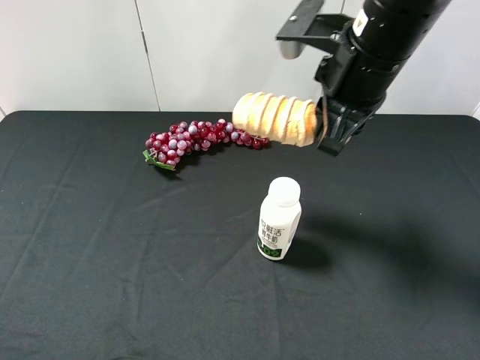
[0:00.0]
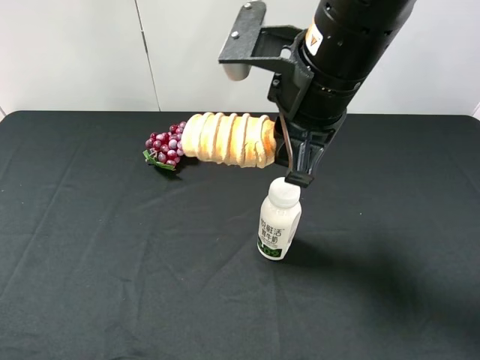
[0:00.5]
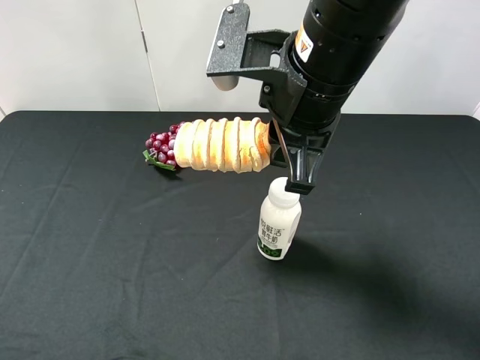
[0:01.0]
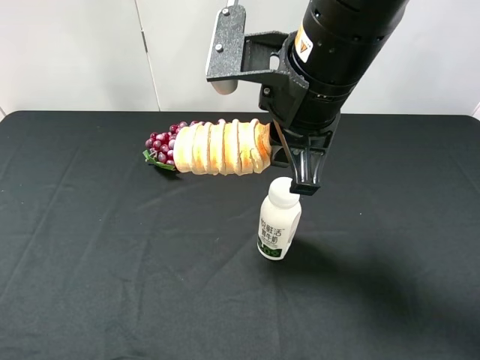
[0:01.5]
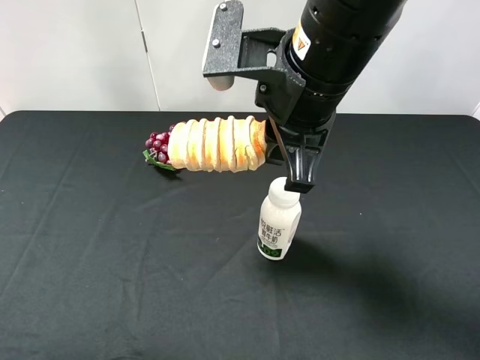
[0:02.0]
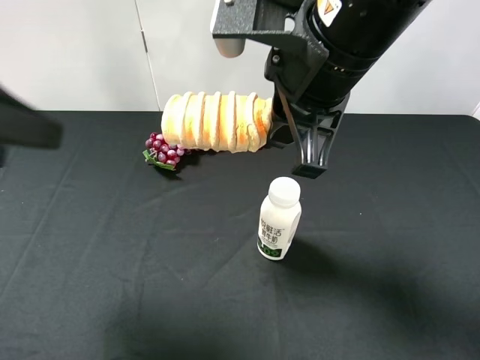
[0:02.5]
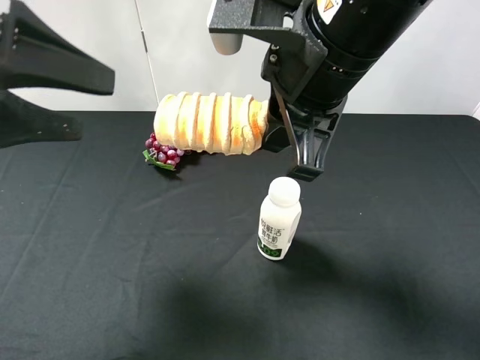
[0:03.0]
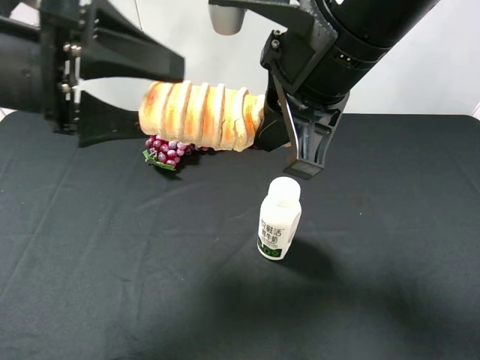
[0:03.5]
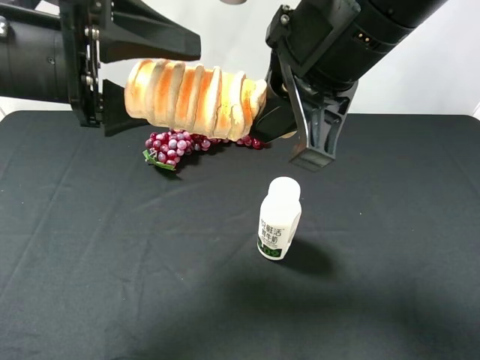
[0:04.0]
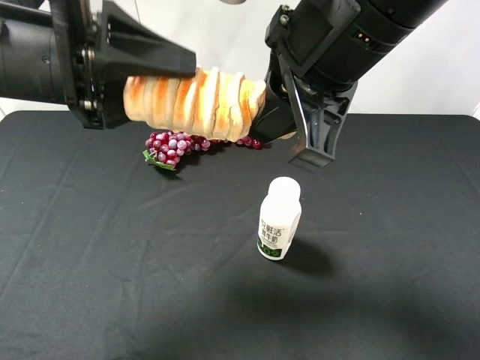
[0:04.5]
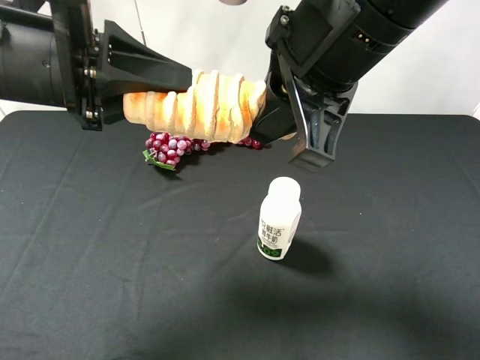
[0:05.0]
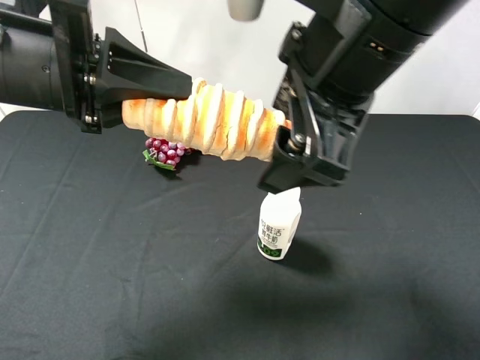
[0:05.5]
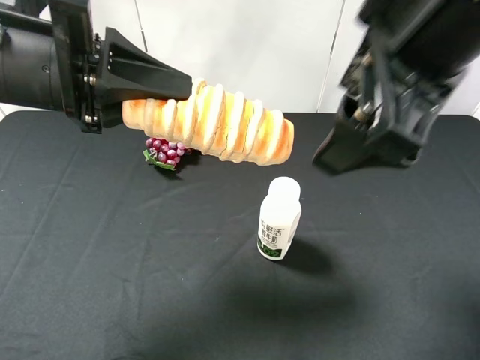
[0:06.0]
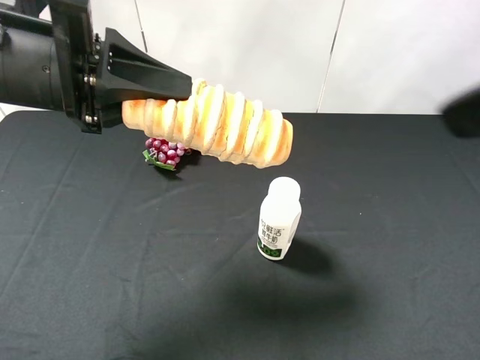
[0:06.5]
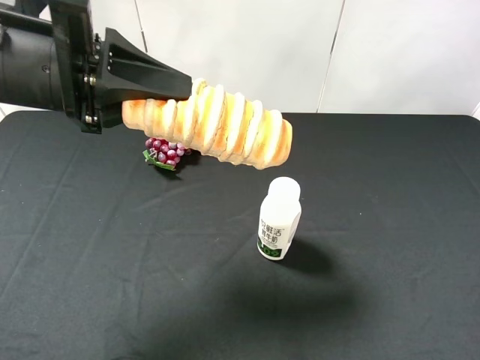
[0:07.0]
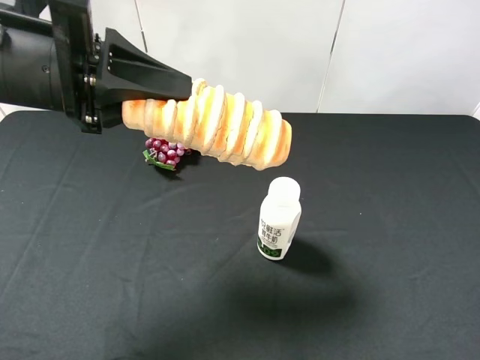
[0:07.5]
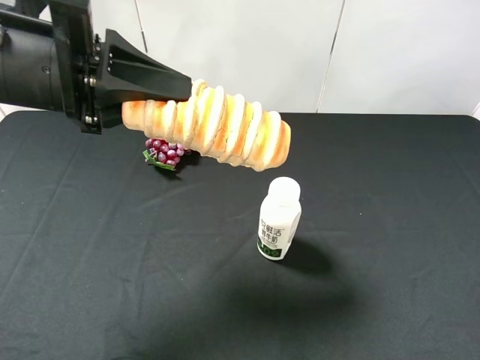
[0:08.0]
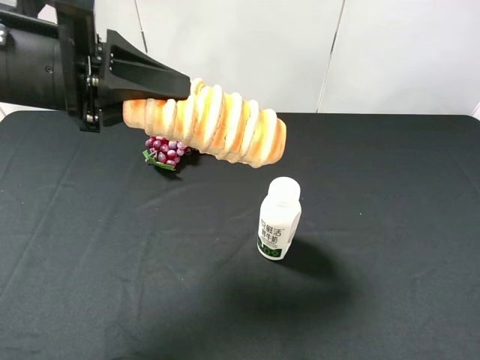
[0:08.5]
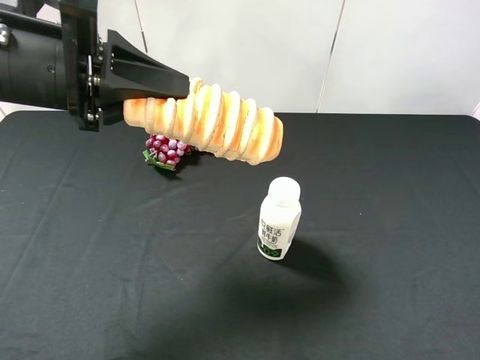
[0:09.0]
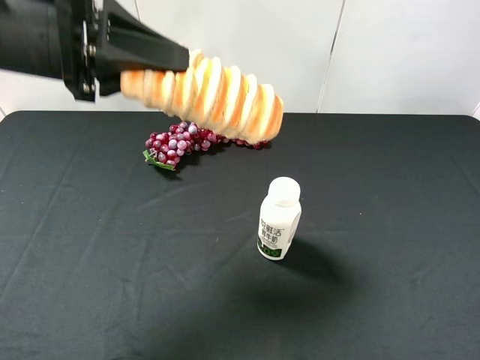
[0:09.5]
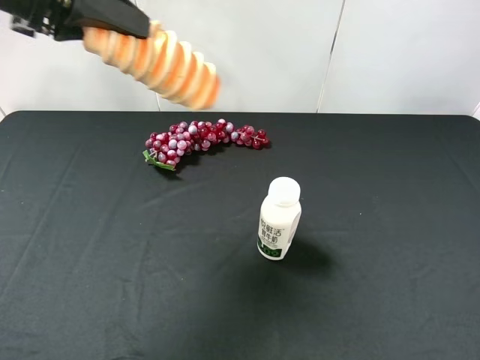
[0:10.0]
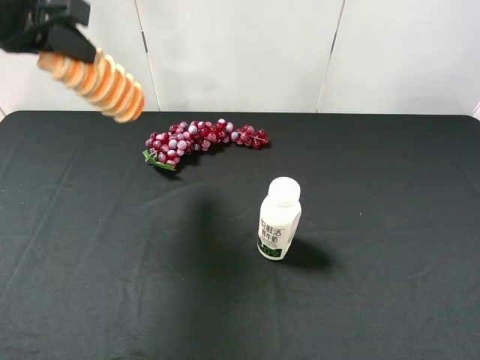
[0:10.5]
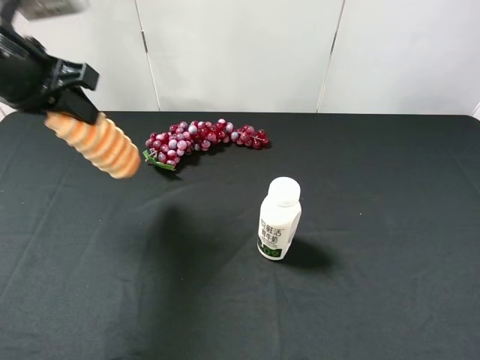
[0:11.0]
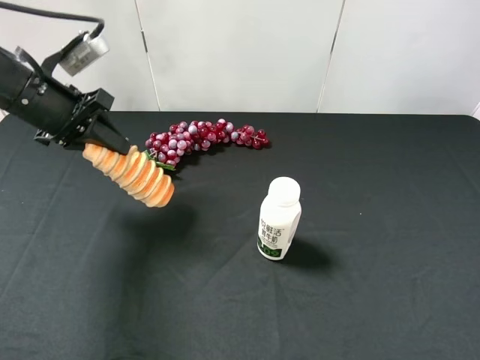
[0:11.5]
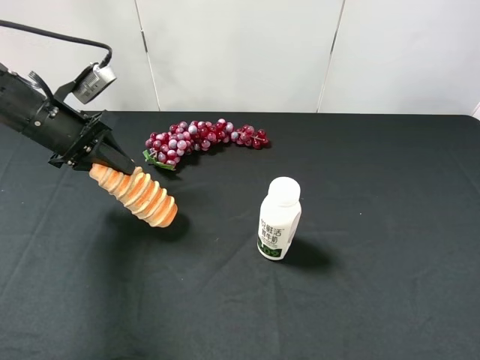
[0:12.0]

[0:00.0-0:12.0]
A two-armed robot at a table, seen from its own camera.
Task of the whole recording: use the right gripper to pick up the item and transfer it from the right gripper to the left gripper.
Step, 0:00.0 to 0:05.5: Pass the bread to the left gripper.
0:00.0 to 0:02.0: The left gripper moves forward and upward, about 10 cm. The right gripper moves to the left, approximately 5 cm.
0:02.0 to 0:04.0: The right gripper changes place by some 5 cm. The left gripper is displaced forward and to the right by about 20 cm.
0:04.0 to 0:06.0: The right gripper travels to the right by some 5 cm, and opens, while the left gripper closes.
0:06.0 to 0:08.0: The right gripper heads to the right, backward and downward, covering roughly 25 cm.
0:08.0 to 0:10.0: The left gripper goes approximately 10 cm upward.
0:10.0 to 0:12.0: The left gripper goes about 20 cm downward.

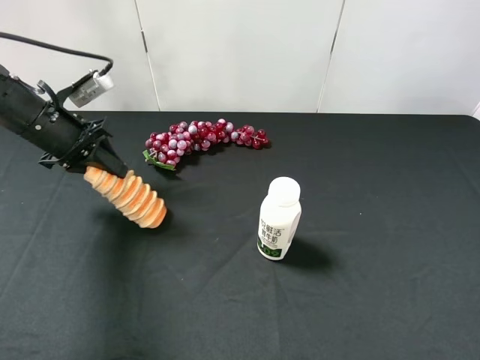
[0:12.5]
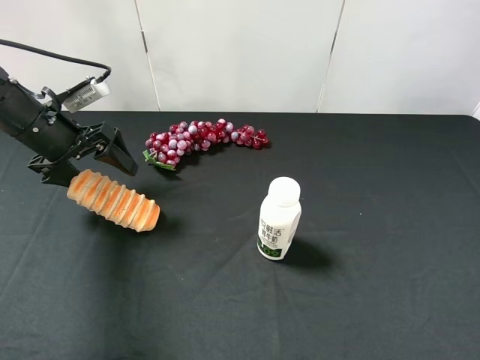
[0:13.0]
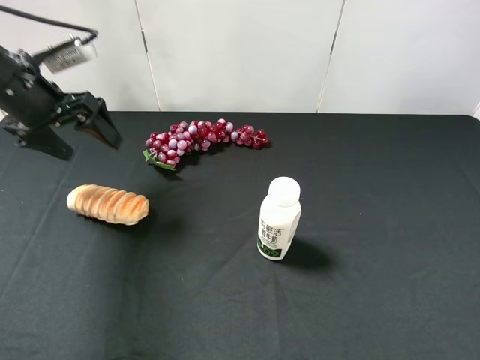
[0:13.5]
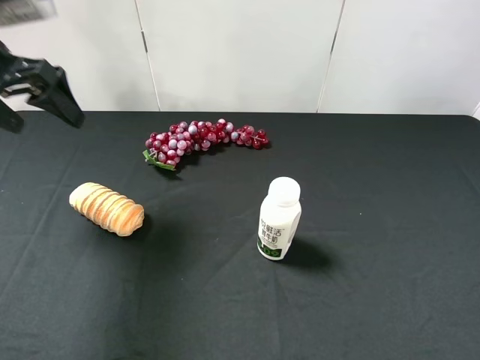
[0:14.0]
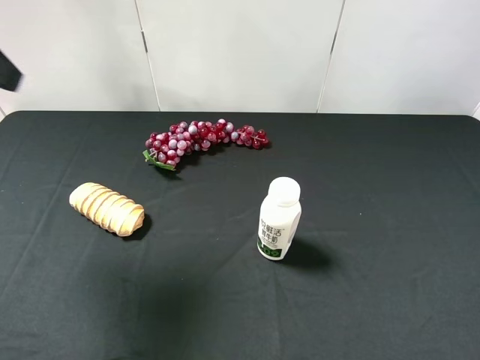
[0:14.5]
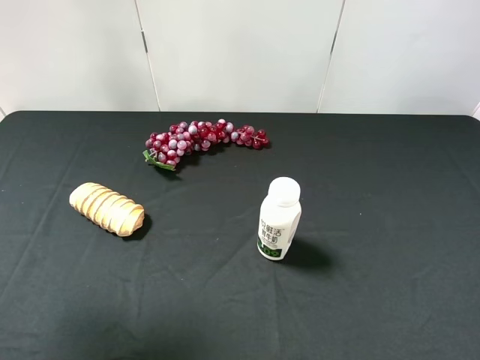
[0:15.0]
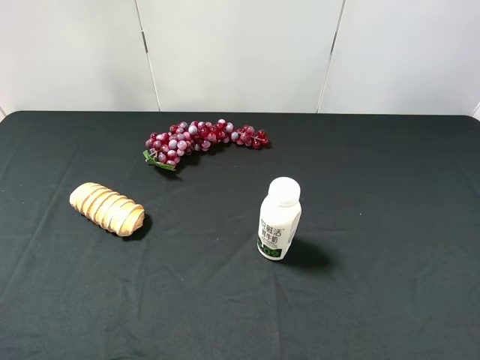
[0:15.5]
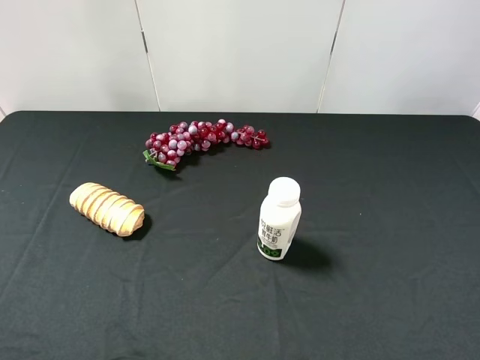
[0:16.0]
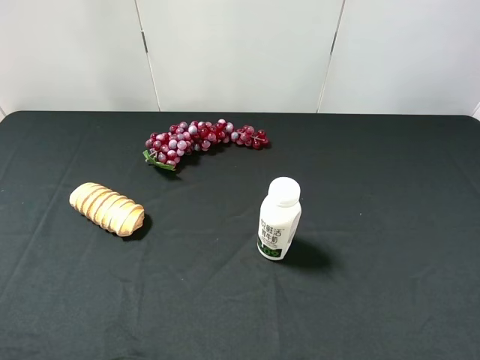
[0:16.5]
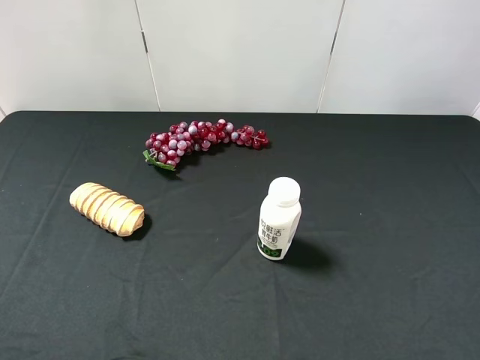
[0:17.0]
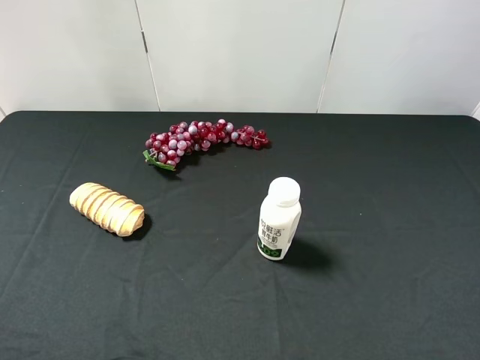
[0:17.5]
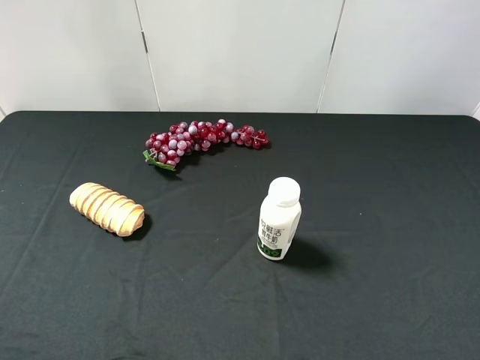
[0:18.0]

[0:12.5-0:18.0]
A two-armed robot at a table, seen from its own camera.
Task of the whole recording: use the right gripper to pick up the item and transfer it from the right gripper to the left gripper.
0:12.5 to 0:14.5: The left gripper heads upward and backward, covering some 25 cm, and opens.
0:14.5 to 0:16.0: The left gripper shifts some 20 cm backward.
0:16.0 to 0:18.0: Both grippers stay about where they are.
